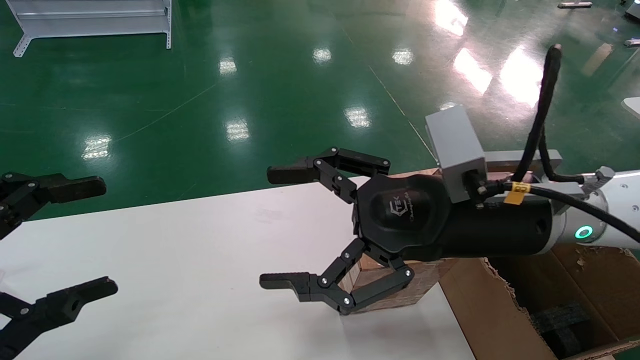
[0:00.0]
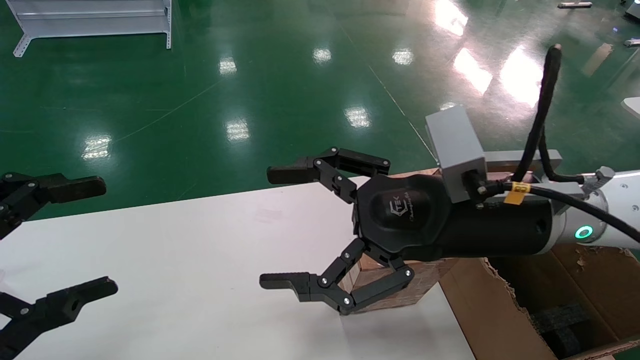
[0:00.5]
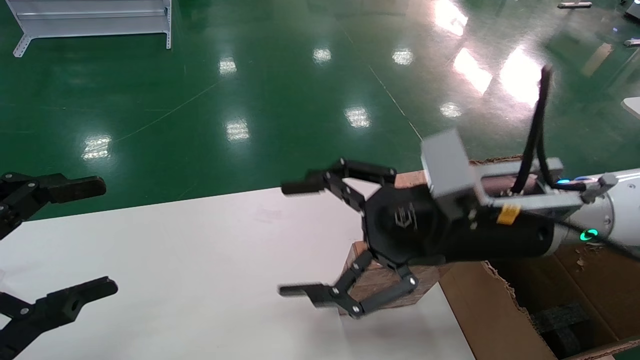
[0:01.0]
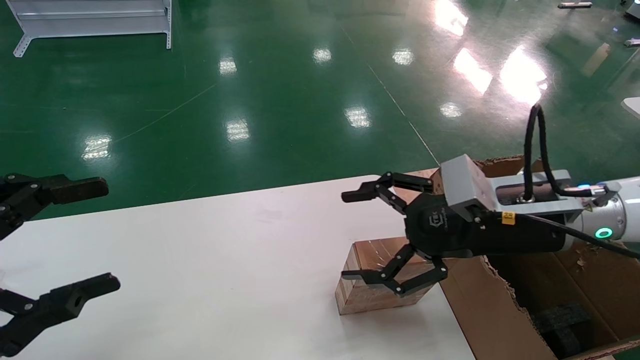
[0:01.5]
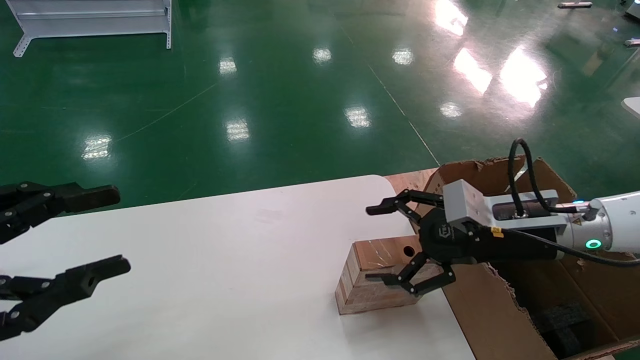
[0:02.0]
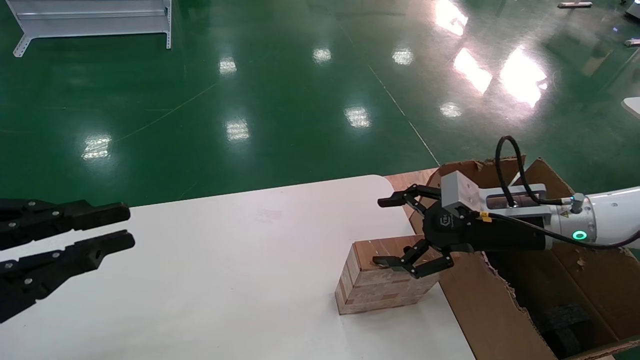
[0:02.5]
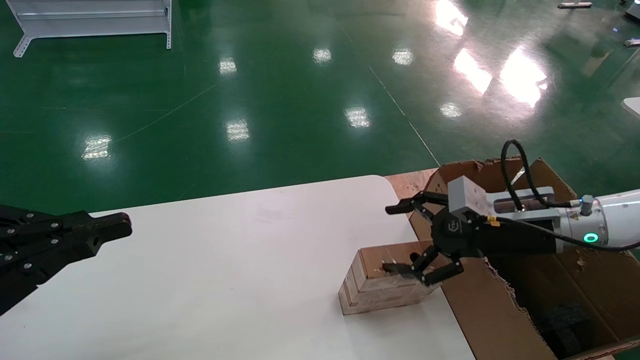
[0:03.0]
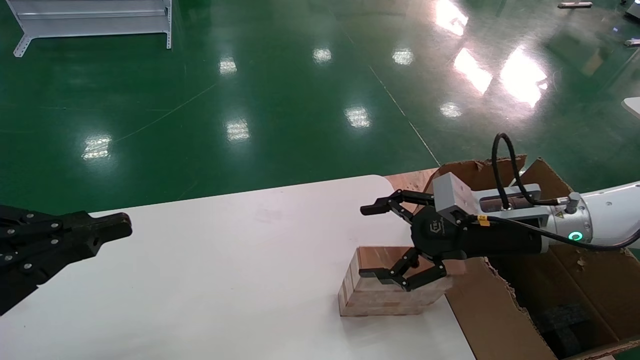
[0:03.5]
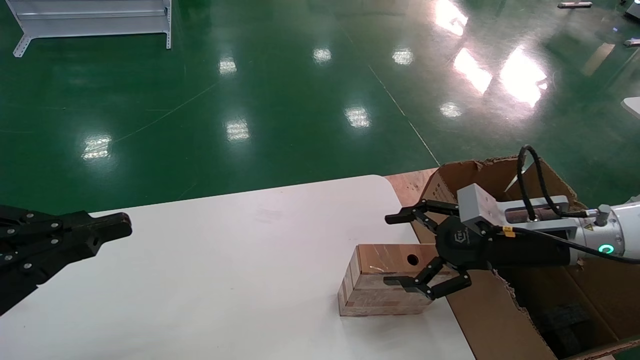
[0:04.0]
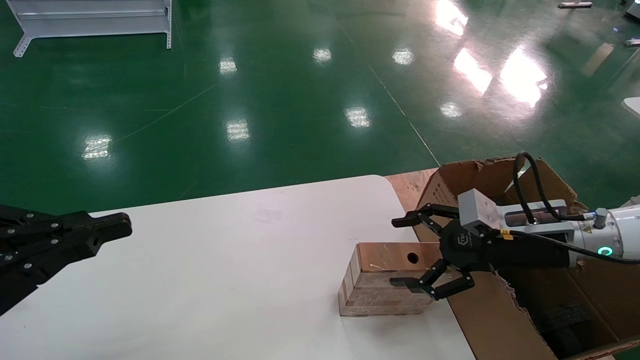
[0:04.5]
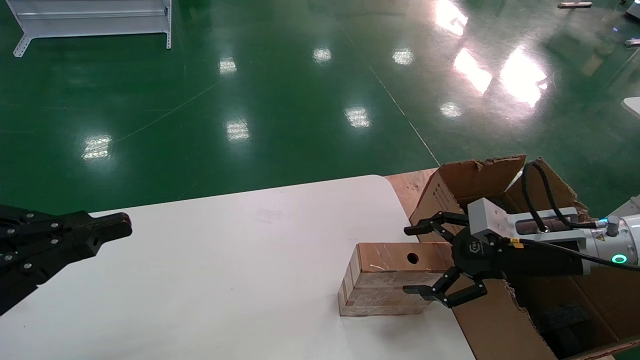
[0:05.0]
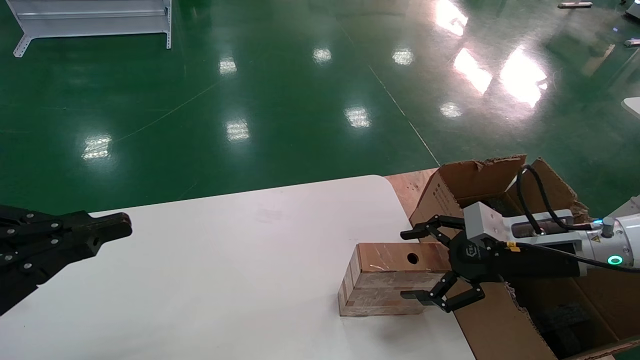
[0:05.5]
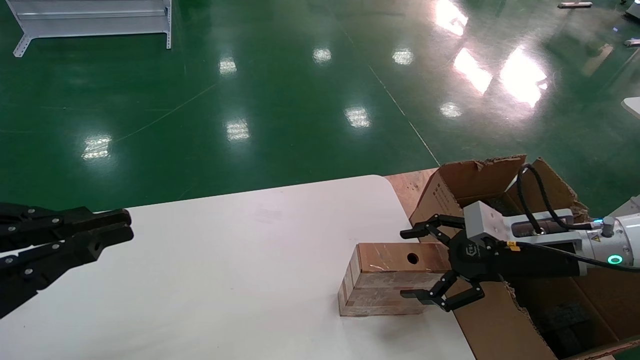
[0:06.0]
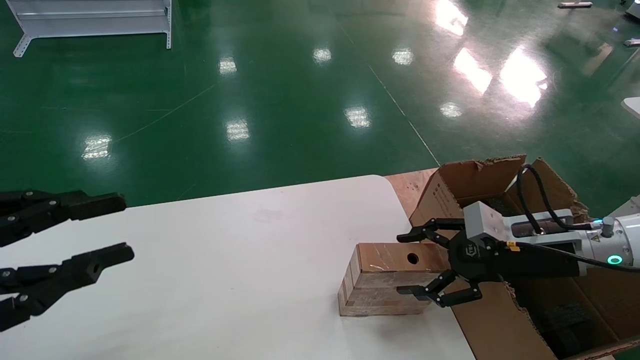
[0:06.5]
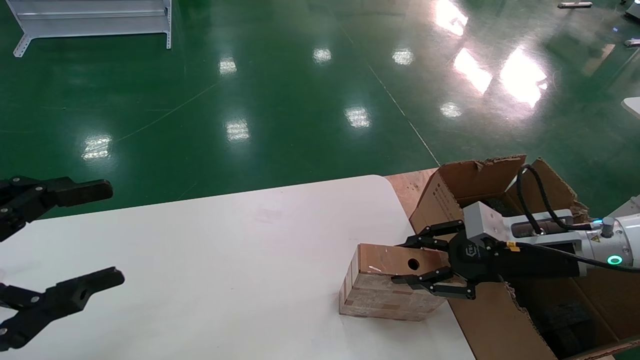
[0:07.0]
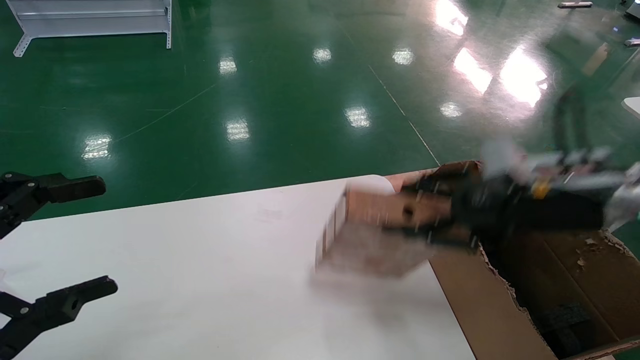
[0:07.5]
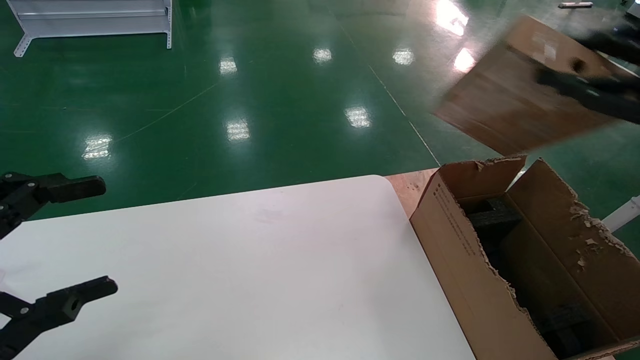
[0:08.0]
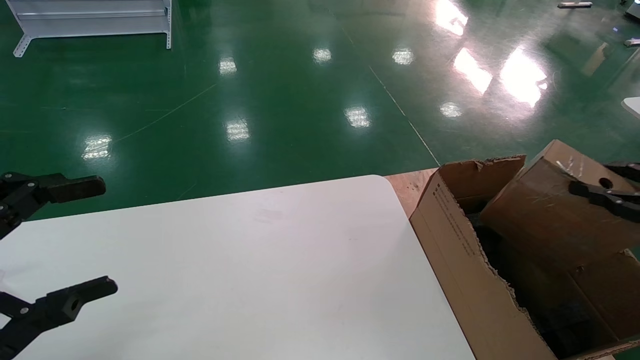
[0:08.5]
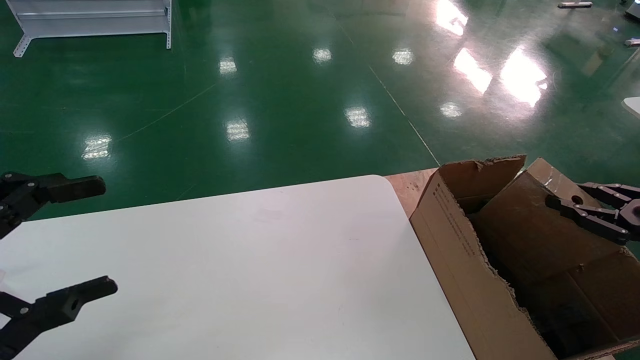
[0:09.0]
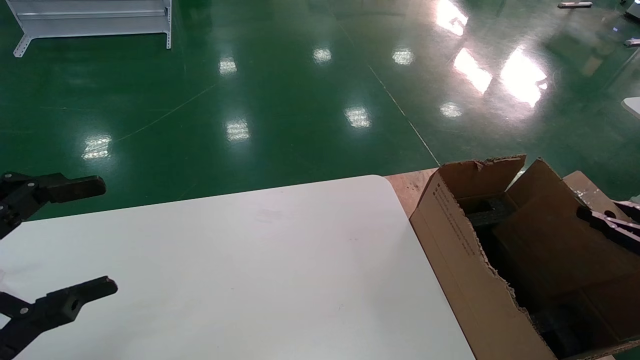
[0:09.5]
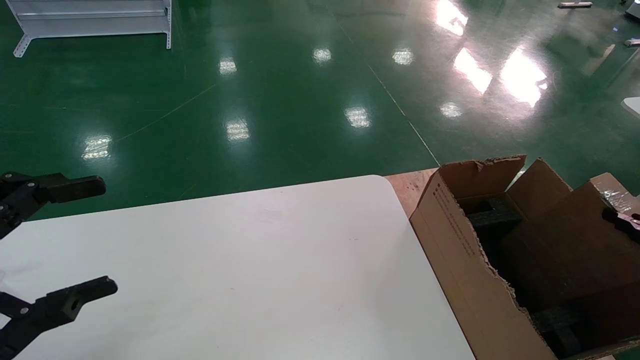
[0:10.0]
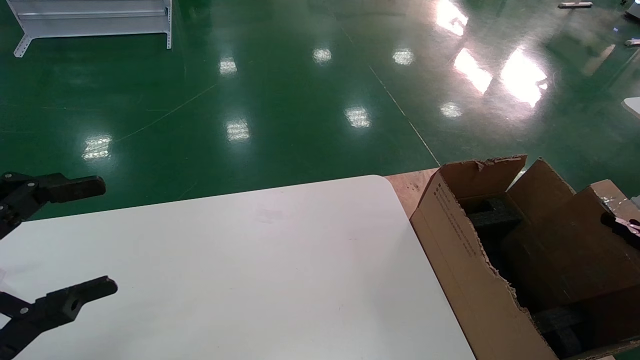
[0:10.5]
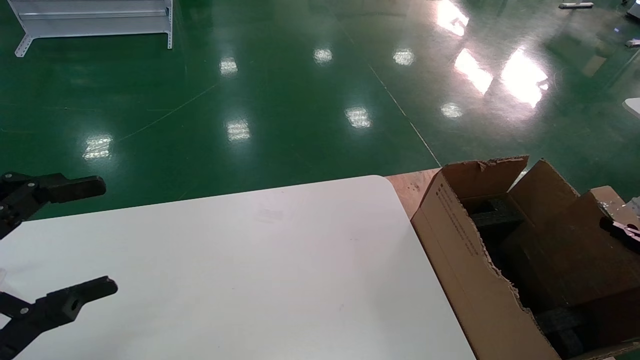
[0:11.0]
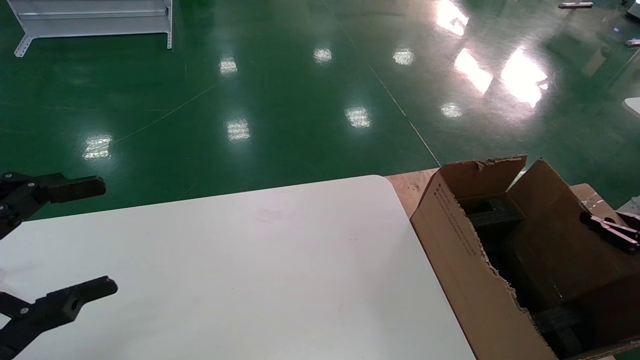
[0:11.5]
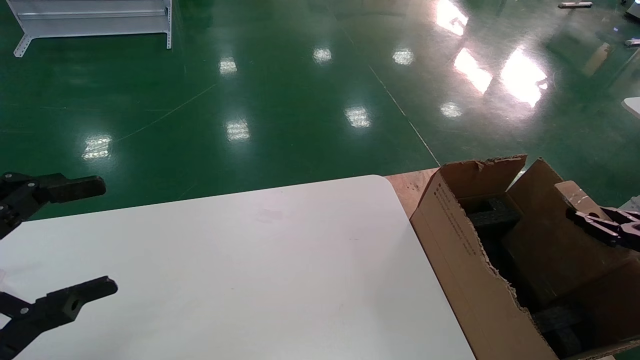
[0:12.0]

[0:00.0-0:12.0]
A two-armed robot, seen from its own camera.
Task of the whole recording: put the box on the table into the big box.
Step, 0:01.5 to 0:07.0: Pick up the mouse and the power cord paper box.
0:00.0 to 0:02.0: The right gripper moves to the right, downward and forward, about 15 cm.
0:02.0 to 0:04.0: The left gripper closes.
0:04.0 to 0:06.0: The grippers make only small movements.
0:06.0 to 0:08.0: The left gripper opens its fingers, while the right gripper goes roughly 25 cm upward, to the right and backward, and closes.
0:08.0 to 0:10.0: The right gripper shifts some 25 cm downward and to the right.
0:10.0 to 0:12.0: The right gripper moves forward, approximately 5 cm.

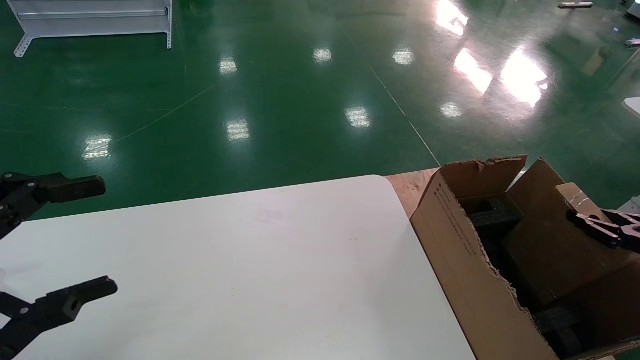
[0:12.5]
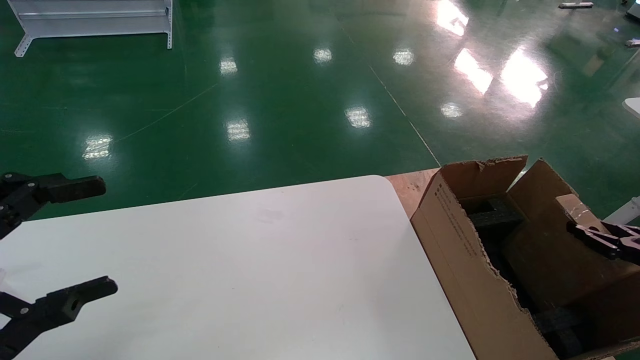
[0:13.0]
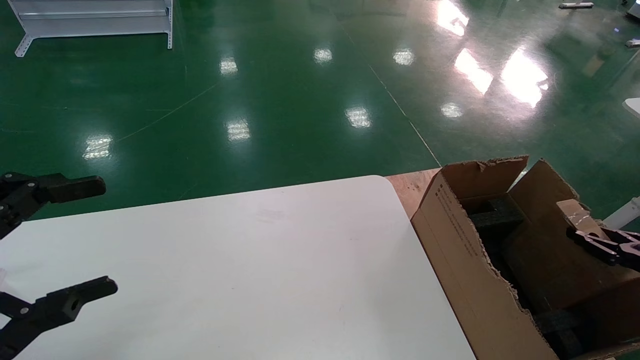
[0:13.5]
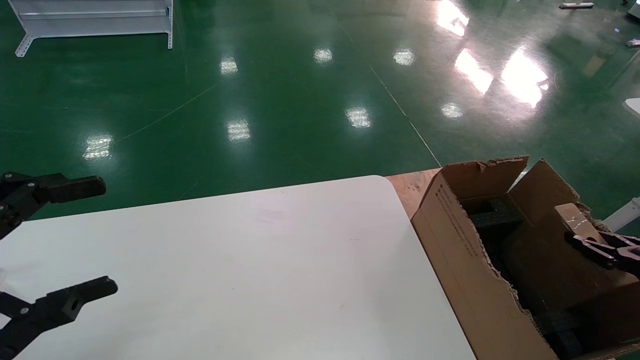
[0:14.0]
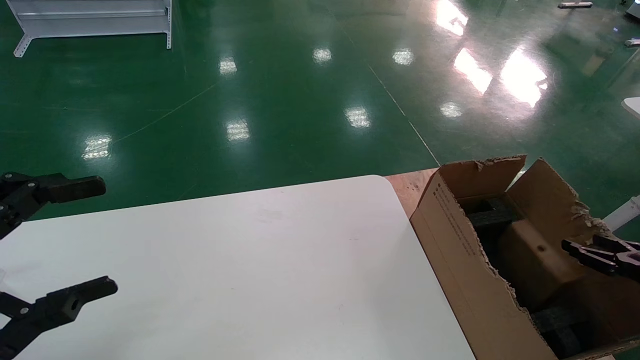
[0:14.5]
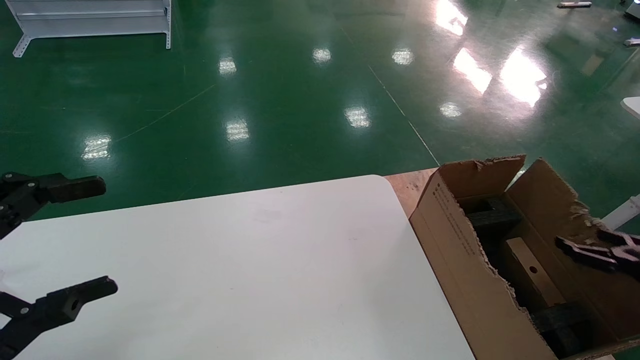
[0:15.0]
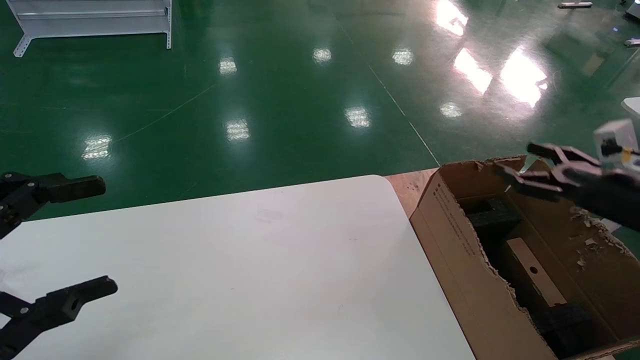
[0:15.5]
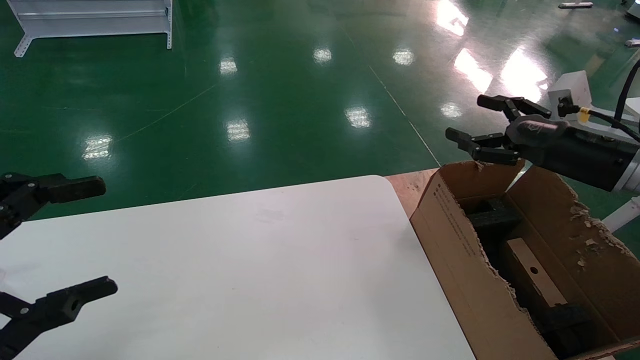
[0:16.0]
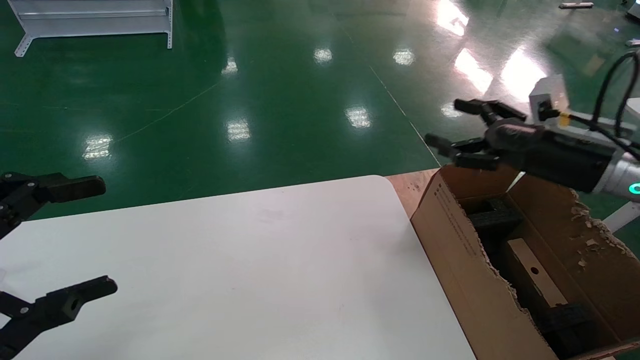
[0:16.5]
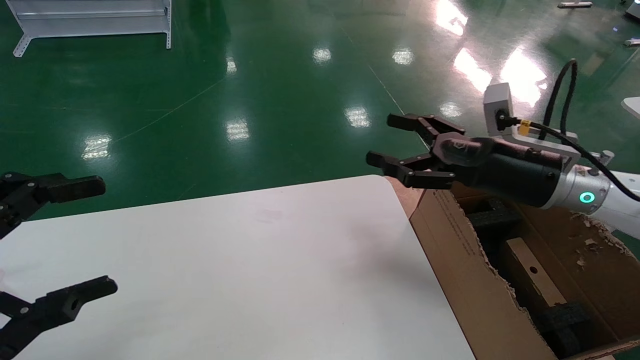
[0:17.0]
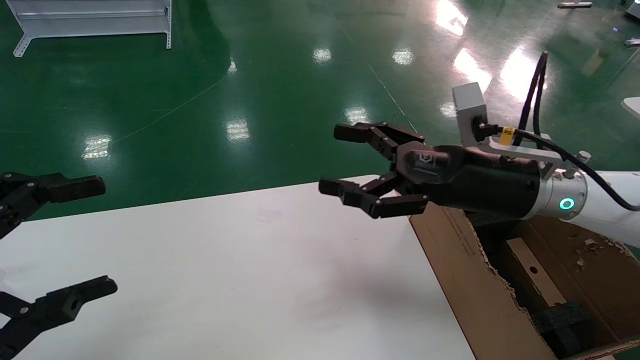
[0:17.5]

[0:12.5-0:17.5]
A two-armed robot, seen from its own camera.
Task of the whole recording: put the box on the table into the big box.
Step, 0:12.5 to 0:14.5: Place the mouse and the power cord paper box into the container.
0:12.5 to 0:15.0: The right gripper opens.
0:15.0 to 0:17.5: The right gripper travels to the left and upward by roughly 35 cm.
